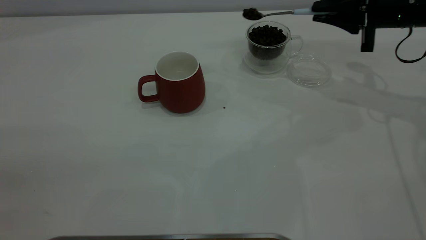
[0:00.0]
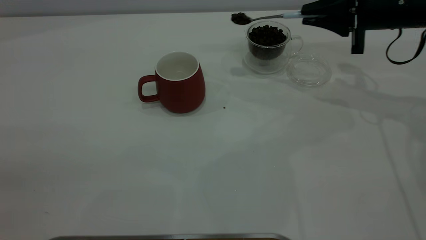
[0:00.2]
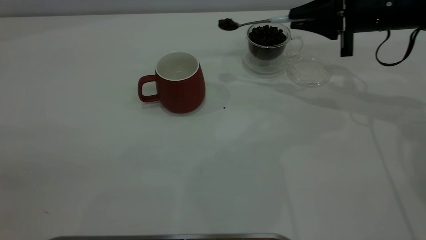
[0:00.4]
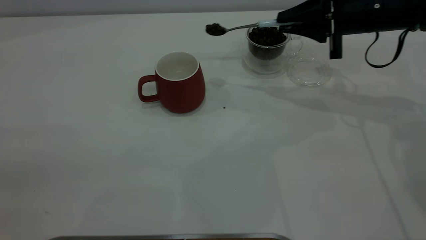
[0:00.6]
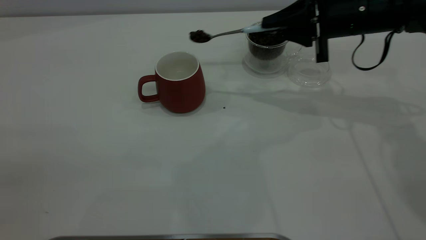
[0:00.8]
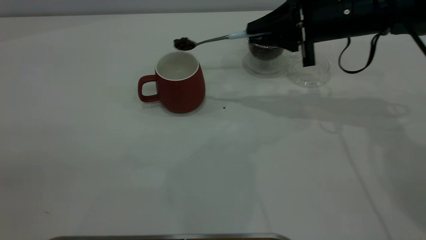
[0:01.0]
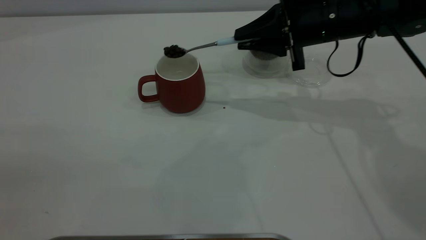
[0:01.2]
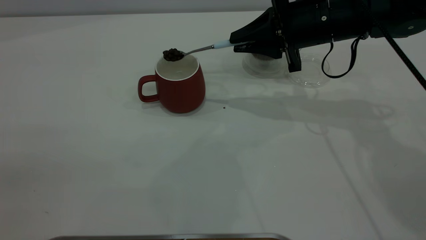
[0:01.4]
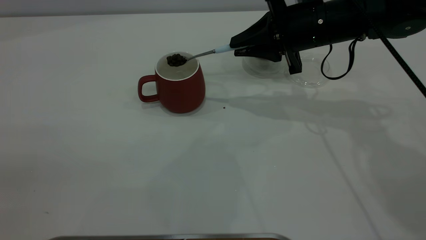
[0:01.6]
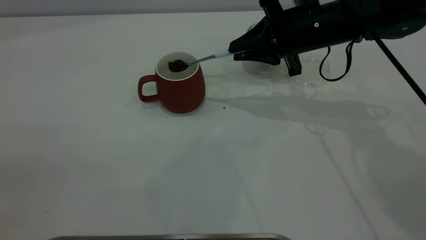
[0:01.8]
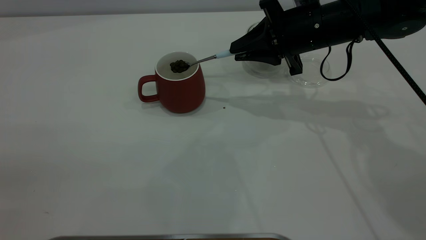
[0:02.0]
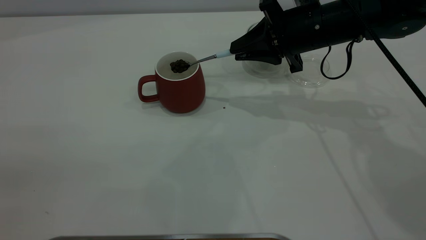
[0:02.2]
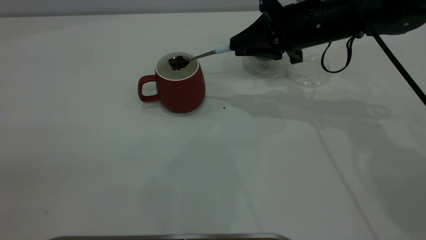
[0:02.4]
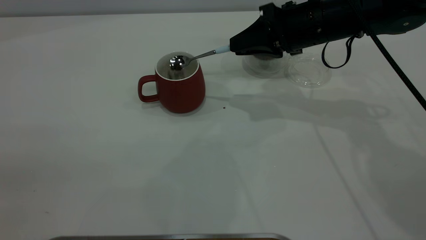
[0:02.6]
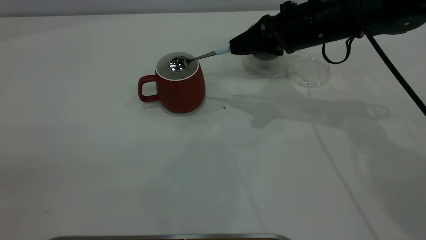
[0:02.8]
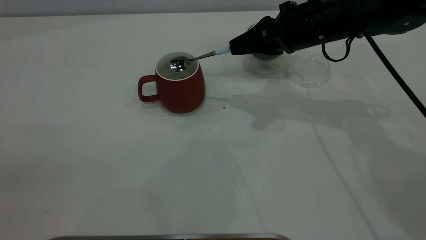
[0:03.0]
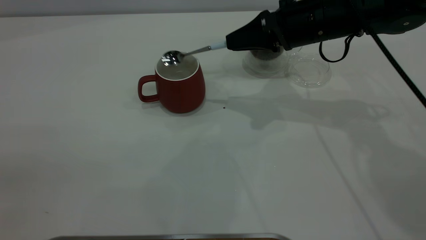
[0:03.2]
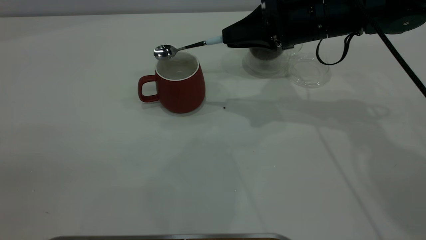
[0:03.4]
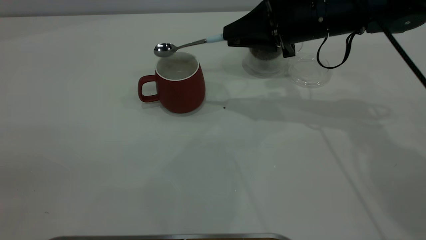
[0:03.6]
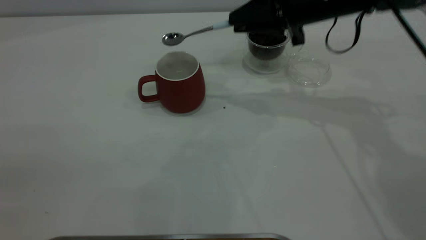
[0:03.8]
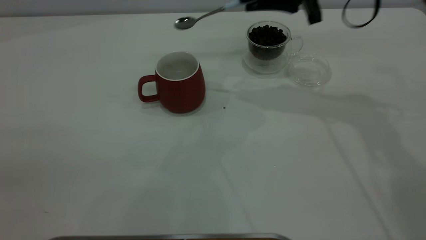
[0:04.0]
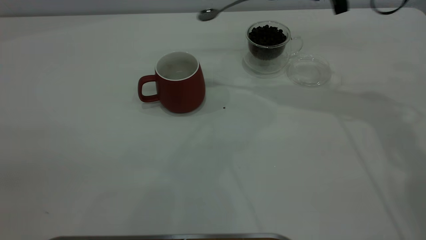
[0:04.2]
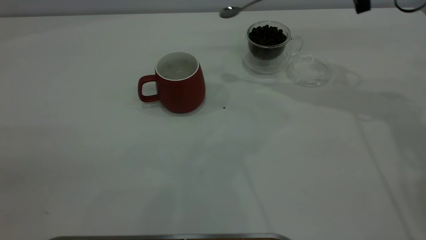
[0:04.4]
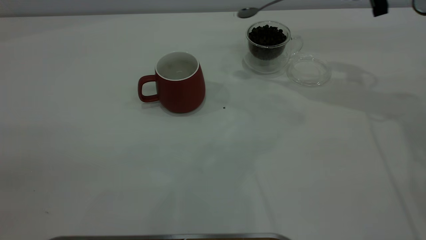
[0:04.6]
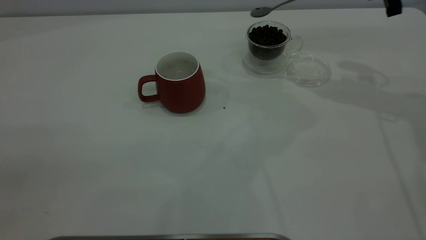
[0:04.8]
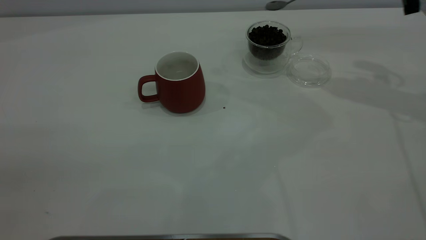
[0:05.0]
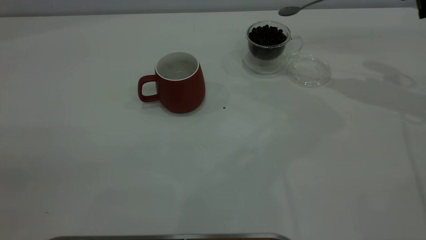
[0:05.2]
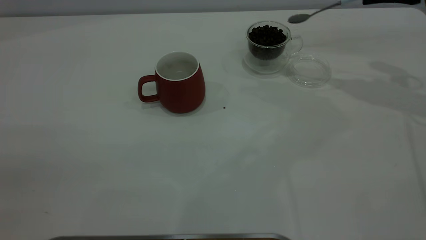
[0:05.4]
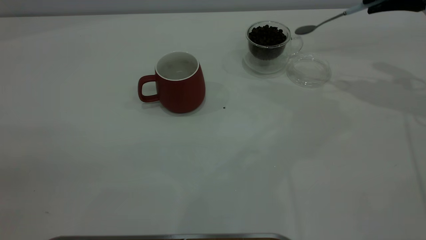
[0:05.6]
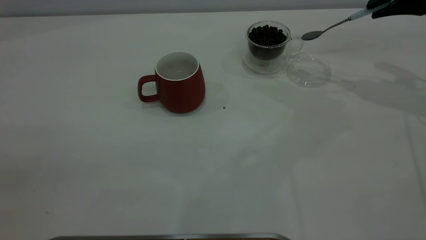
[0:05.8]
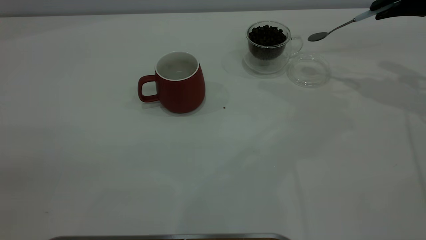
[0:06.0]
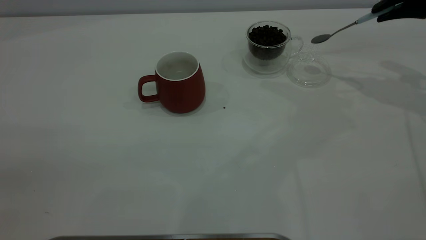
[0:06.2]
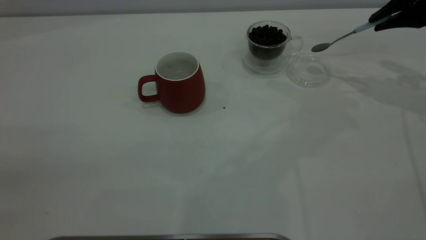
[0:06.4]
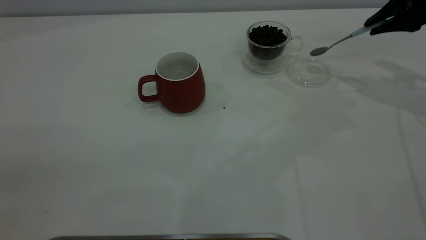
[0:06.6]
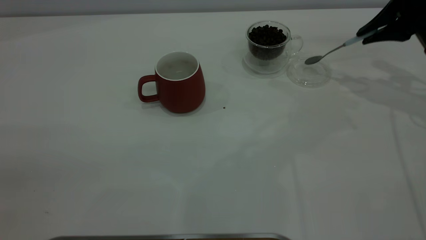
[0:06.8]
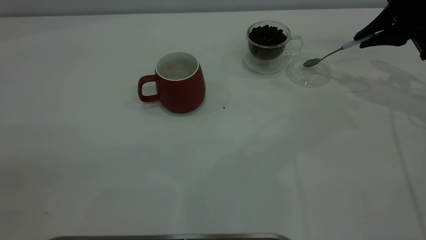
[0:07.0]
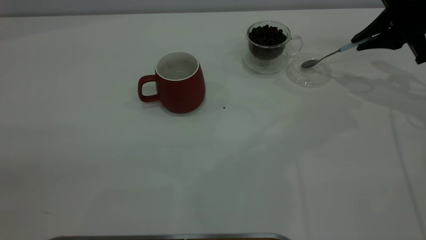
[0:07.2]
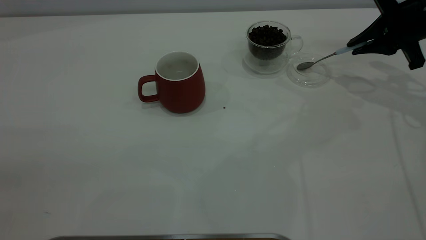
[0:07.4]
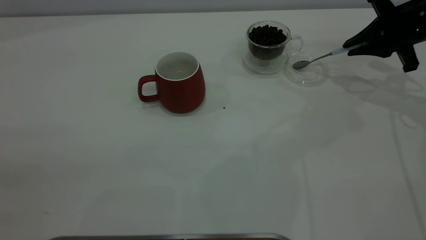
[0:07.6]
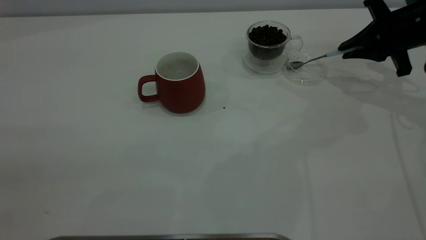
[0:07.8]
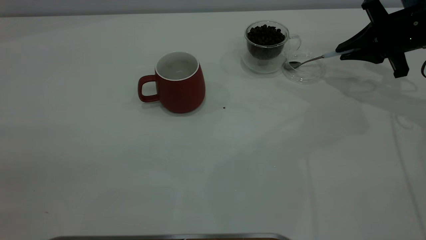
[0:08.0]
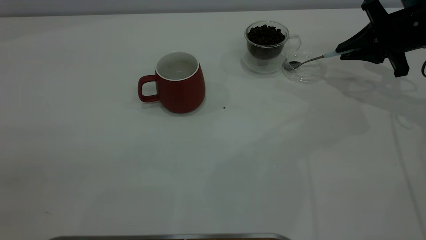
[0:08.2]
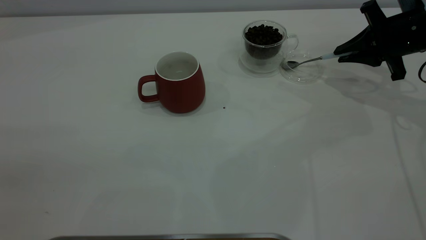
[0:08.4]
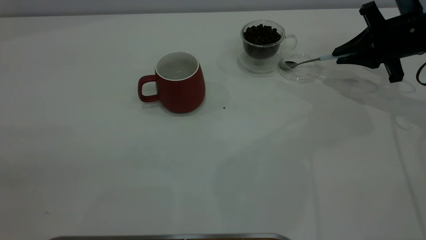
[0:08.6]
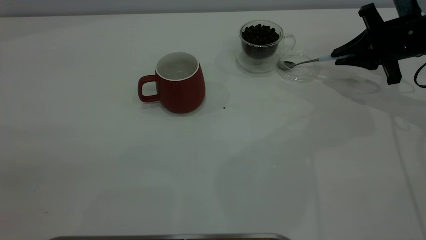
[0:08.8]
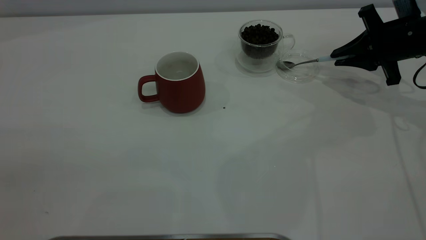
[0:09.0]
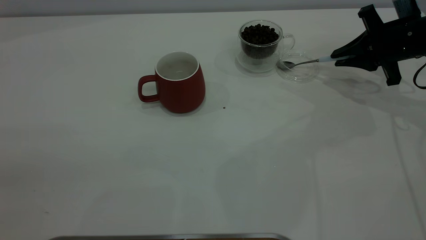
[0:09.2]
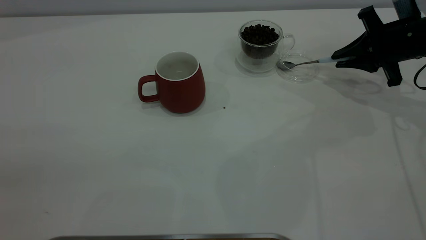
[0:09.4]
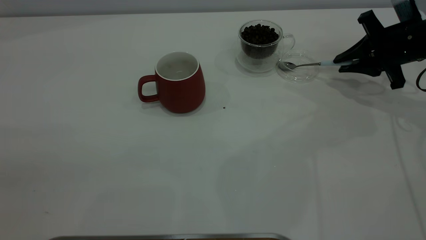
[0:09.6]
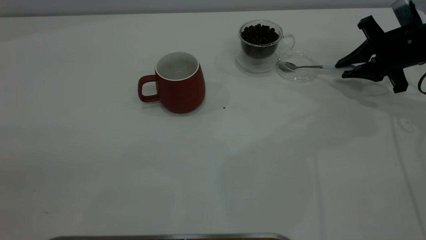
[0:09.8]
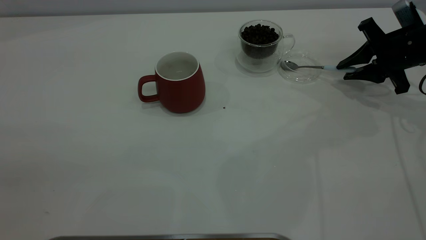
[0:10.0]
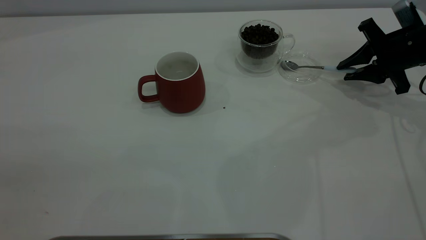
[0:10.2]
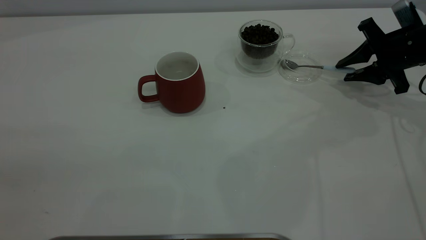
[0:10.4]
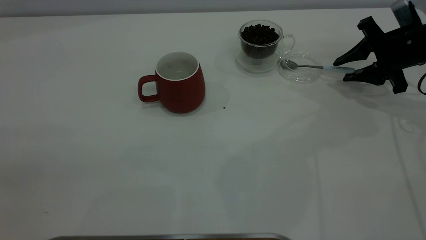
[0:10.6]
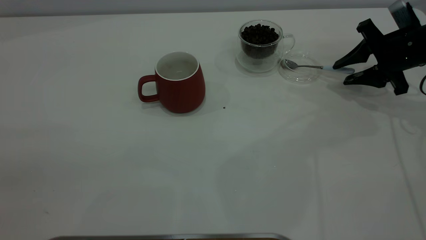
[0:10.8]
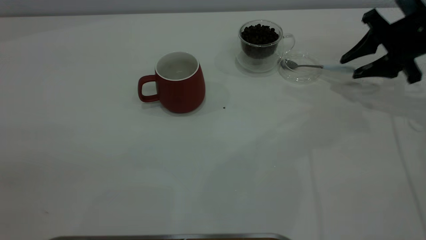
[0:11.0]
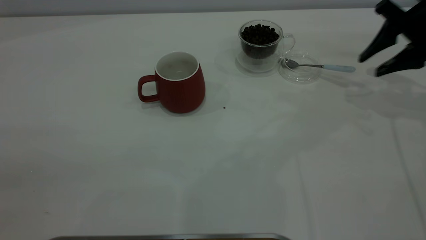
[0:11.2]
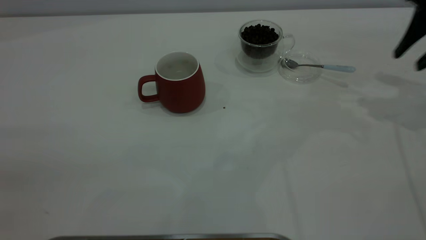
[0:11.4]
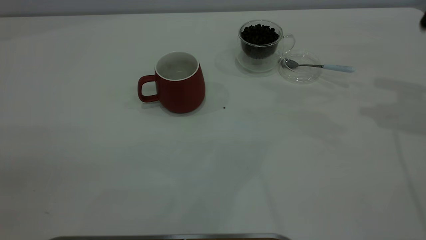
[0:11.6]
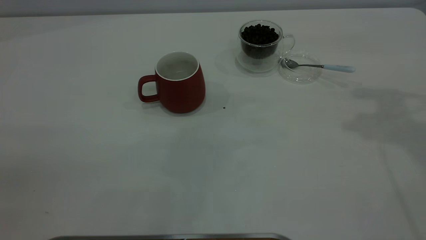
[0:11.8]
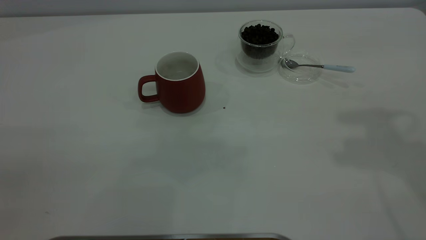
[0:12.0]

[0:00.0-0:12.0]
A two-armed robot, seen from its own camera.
Task of the whole recording: the left gripper place the red cup in the center of the table, the right gripper take the blue spoon from the cup lid and scoop out the coffee beans from the coffee cup and put them into the red cup, the right gripper put the spoon back into the cup lid.
Step, 0:00.0 to 0:03.2: Scoop a spoonful of beans into the cup.
Step, 0:03.4 to 0:11.0: Place the spoon back in its original place.
0:00.0 to 0:01.6: The right gripper is displaced to the left by approximately 15 cm.
0:03.0 to 0:04.4: The right gripper goes roughly 10 cm upward and to the right.
0:04.4 to 0:06.0: The right gripper goes some 10 cm to the right.
0:06.0 to 0:07.6: The right gripper goes approximately 10 cm downward.
0:07.6 to 0:09.0: There are only small adjustments of the grippers.
0:09.0 to 0:10.4: The right gripper opens.
0:10.4 to 0:12.0: The right gripper goes some 35 cm upward.
